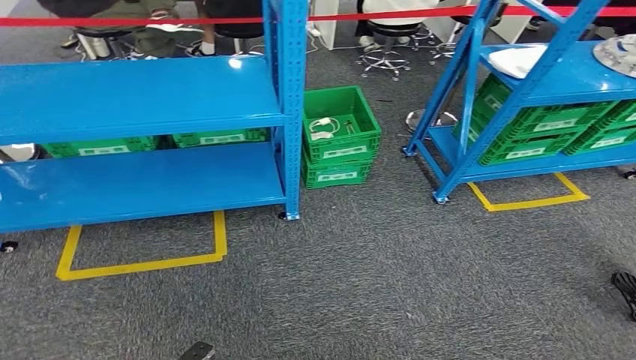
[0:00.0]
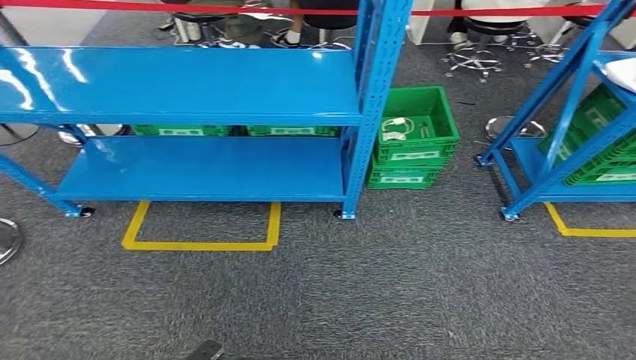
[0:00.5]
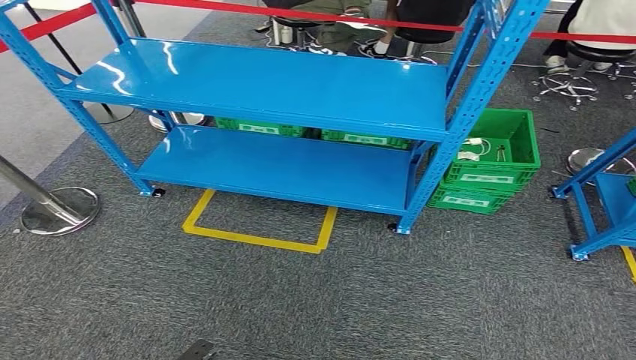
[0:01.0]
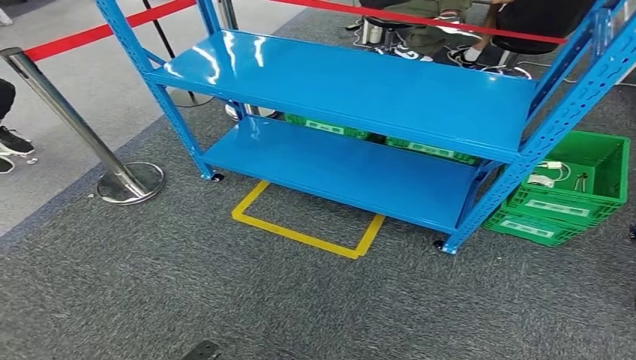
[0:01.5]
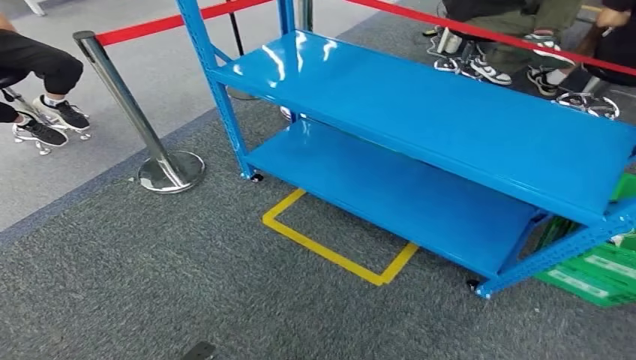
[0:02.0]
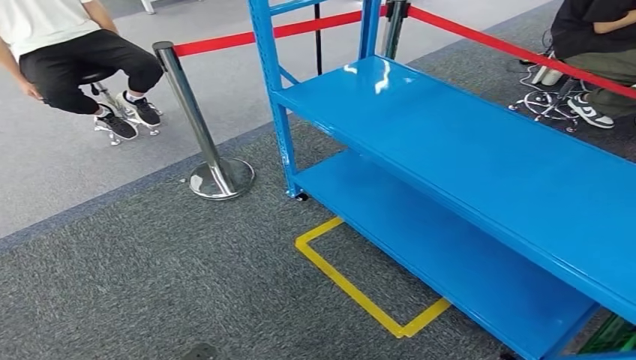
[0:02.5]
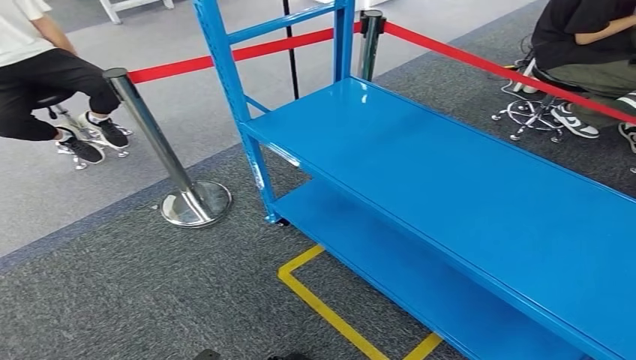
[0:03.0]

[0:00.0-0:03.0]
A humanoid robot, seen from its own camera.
Step, 0:00.0 to 0:03.0: Move to the initial position of the workbench.
